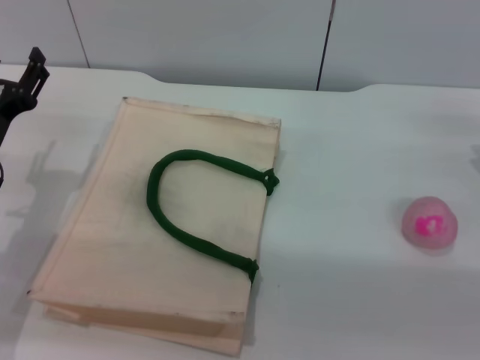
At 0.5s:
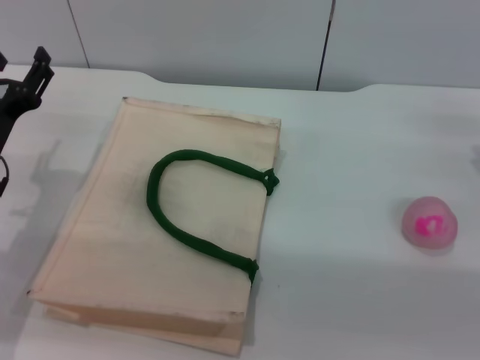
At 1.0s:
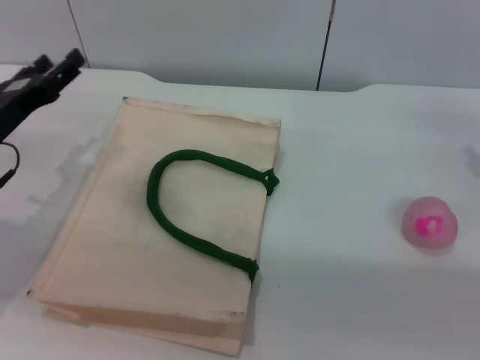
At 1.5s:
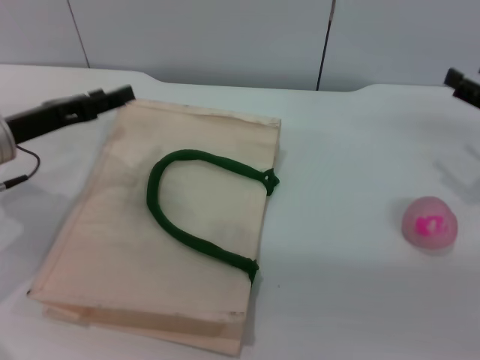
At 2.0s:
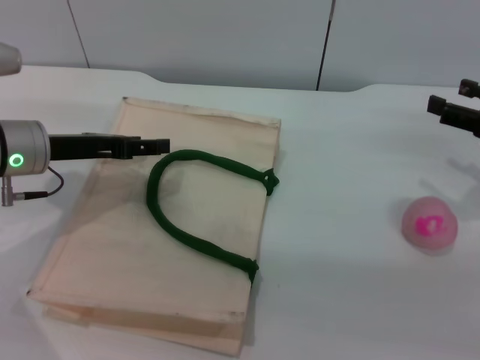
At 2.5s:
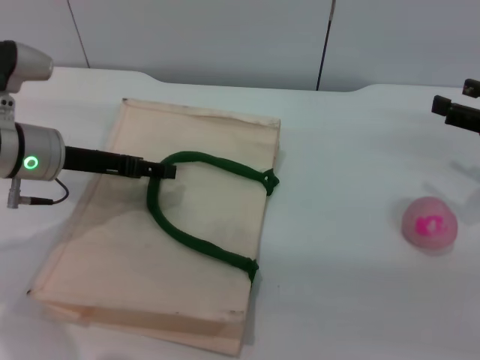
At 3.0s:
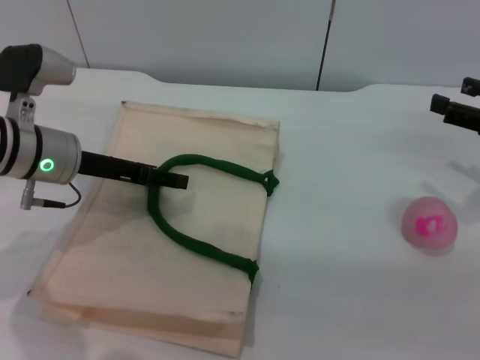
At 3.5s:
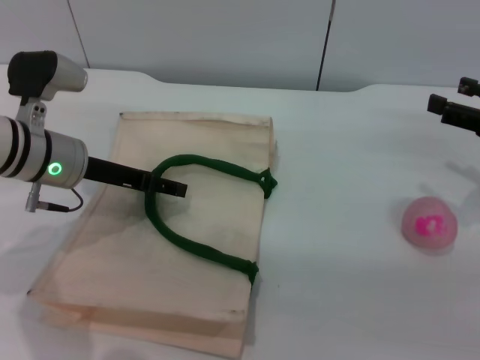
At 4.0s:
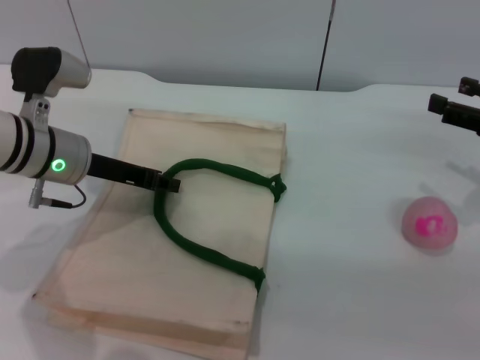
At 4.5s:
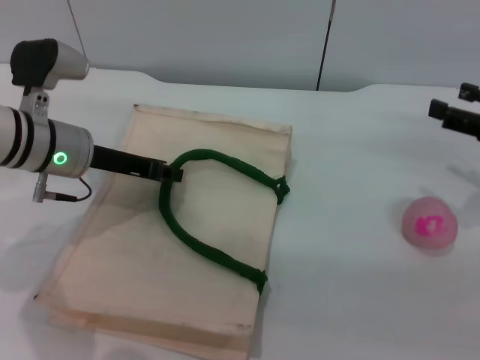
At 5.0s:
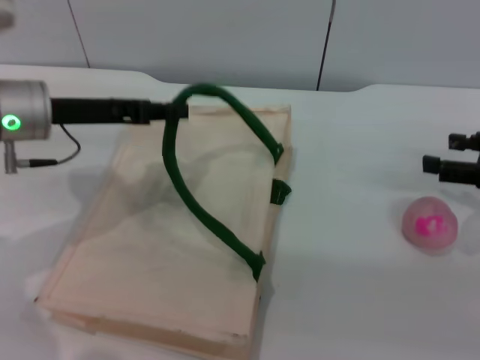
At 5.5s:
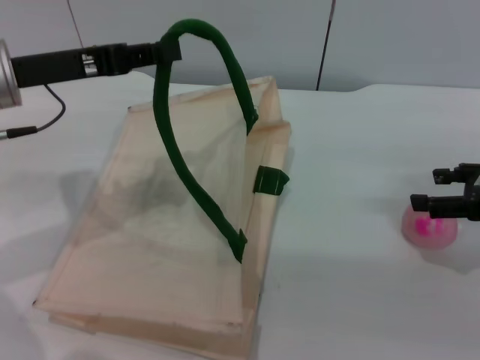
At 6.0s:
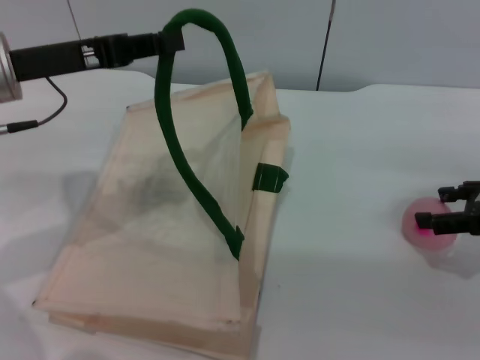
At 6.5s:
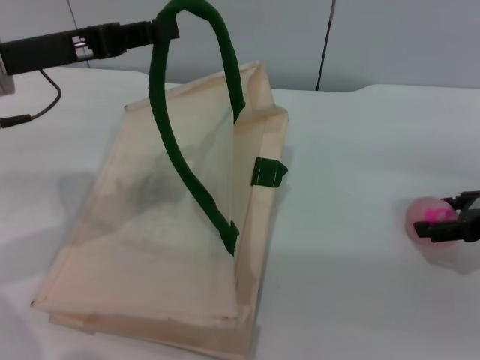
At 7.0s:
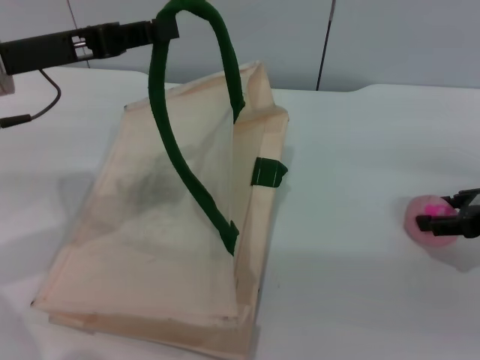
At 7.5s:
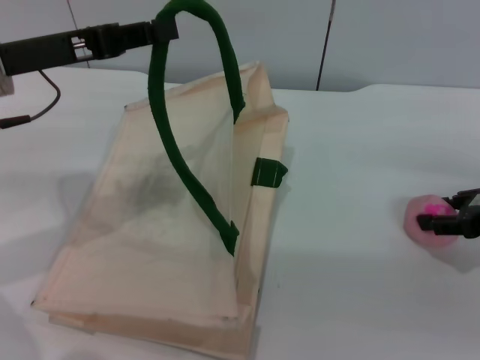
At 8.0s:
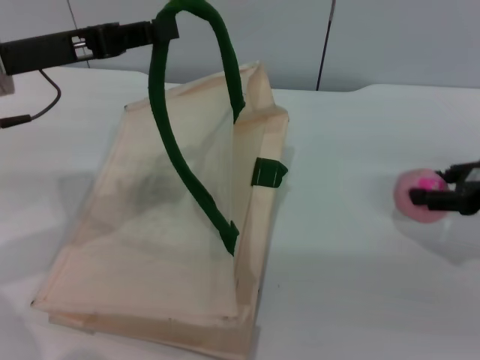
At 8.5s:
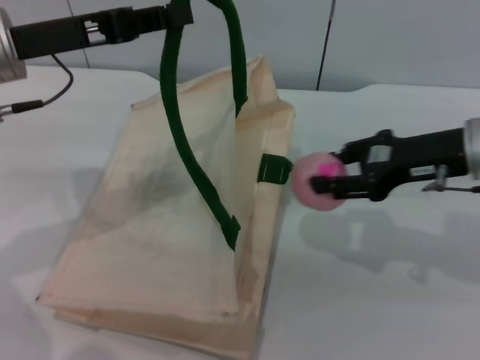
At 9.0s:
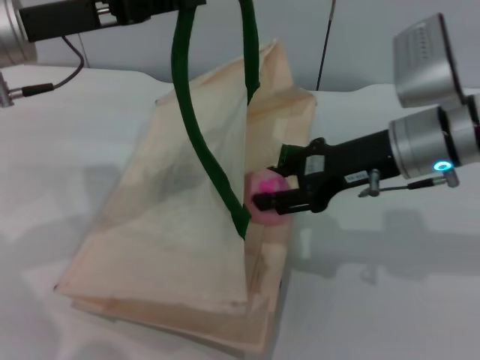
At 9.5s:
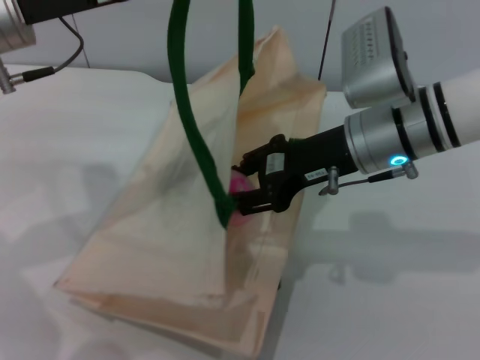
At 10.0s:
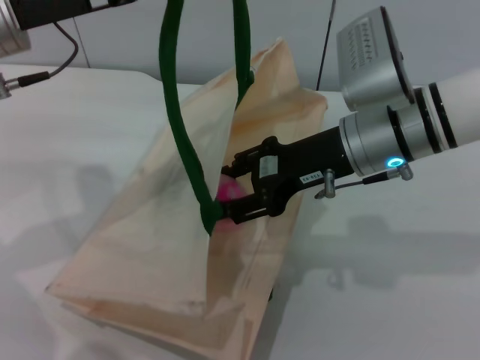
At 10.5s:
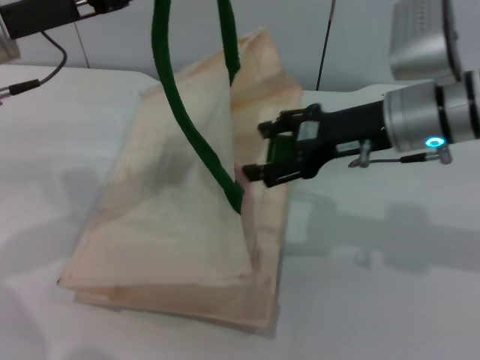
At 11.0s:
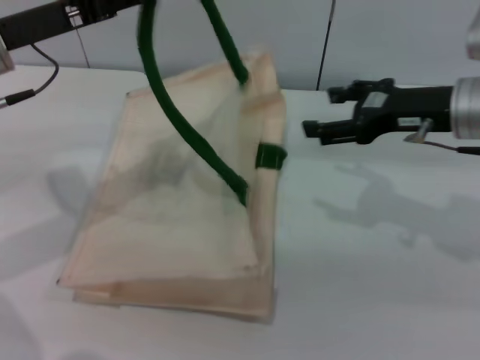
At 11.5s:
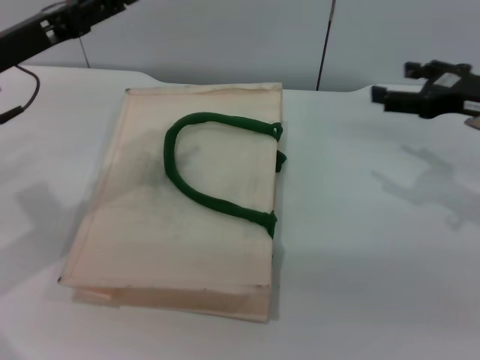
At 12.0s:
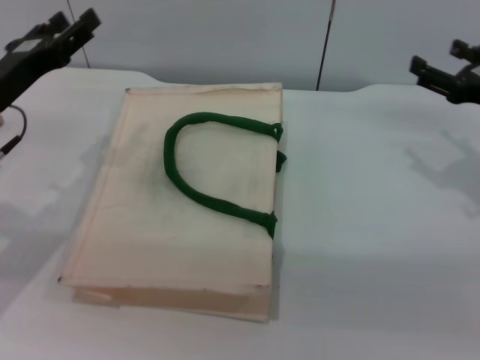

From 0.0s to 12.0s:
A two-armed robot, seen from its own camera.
Task of the whole recording: pick up the peach from the table and place it in the white handbag.
Step, from 0.0s to 4.5s: Lift the woven bag with the left gripper to open it.
Step, from 5.0s to 8.0s: Pick up the peach with the right gripper.
Step, from 8.5s to 10.5s: Place the peach into the woven bag with the right gripper.
Step, from 11.0s to 11.5s: Lower the woven bag with the left gripper to close it.
From 0.0s to 2.0s: The right gripper is displaced upward by approximately 5 cm. The left gripper heads forward, covering approximately 5 cm.
From 2.0s to 4.0s: The left gripper closes its fingers.
From 4.0s to 6.0s: The left gripper goes some 10 cm upward, and closes up.
From 6.0s to 8.0s: The right gripper closes.
From 8.0s to 10.0s: The right gripper moves to the left, approximately 20 cm.
From 10.0s to 12.0s: The right gripper shifts some 20 cm to the right, and opens up, while the left gripper moves downward, roughly 10 cm, and opens up.

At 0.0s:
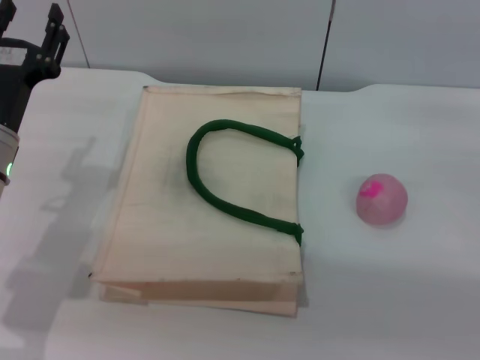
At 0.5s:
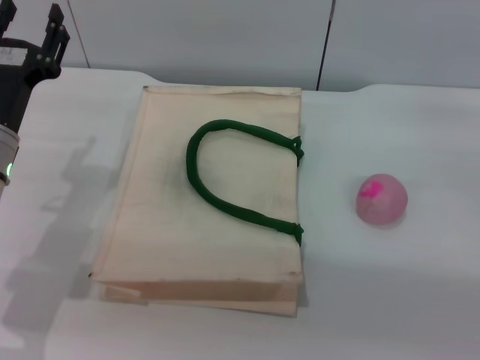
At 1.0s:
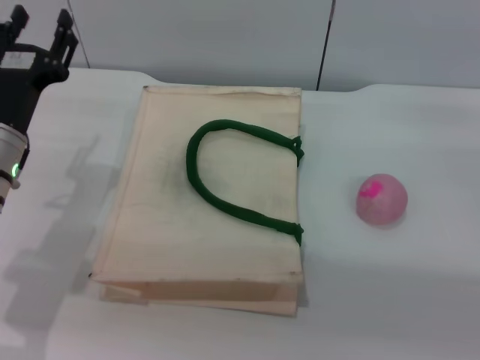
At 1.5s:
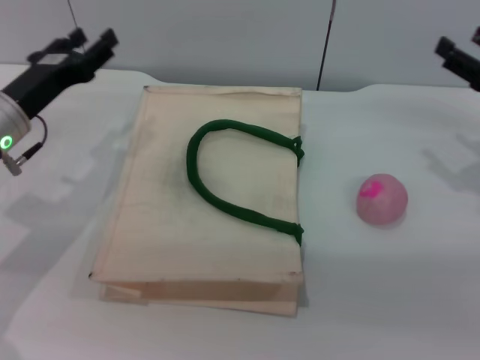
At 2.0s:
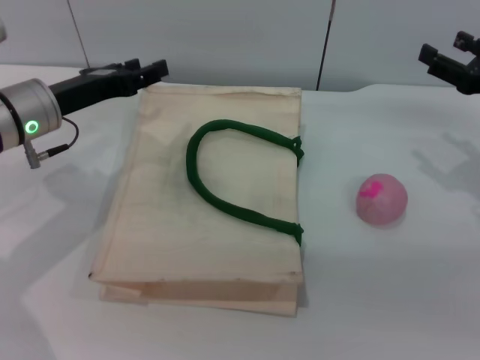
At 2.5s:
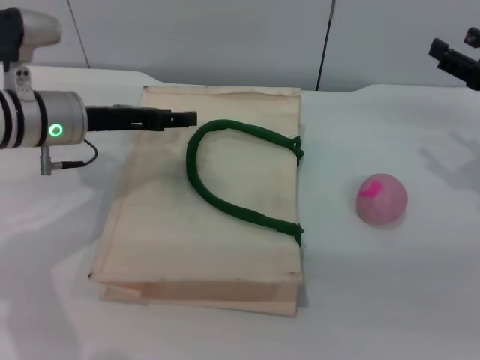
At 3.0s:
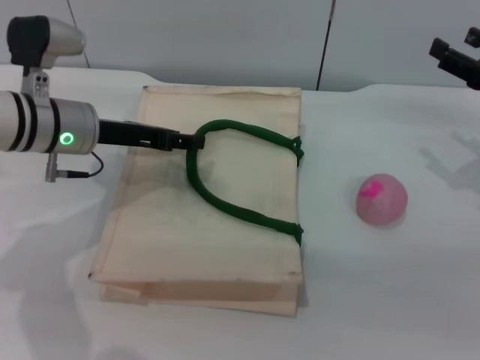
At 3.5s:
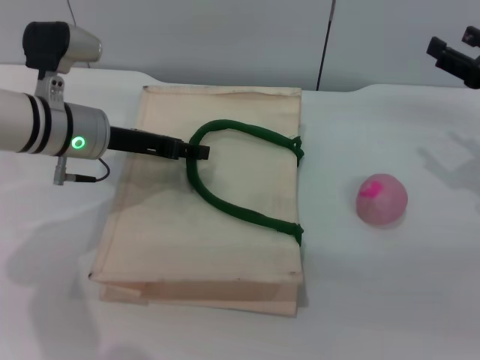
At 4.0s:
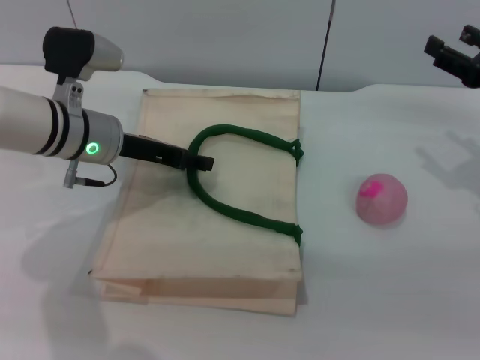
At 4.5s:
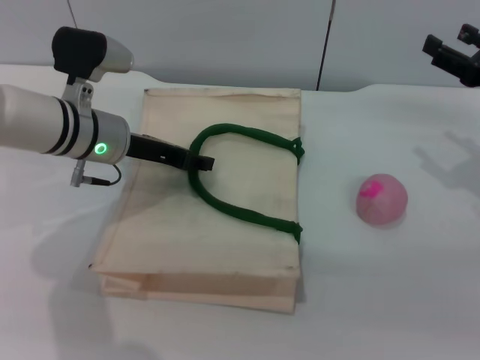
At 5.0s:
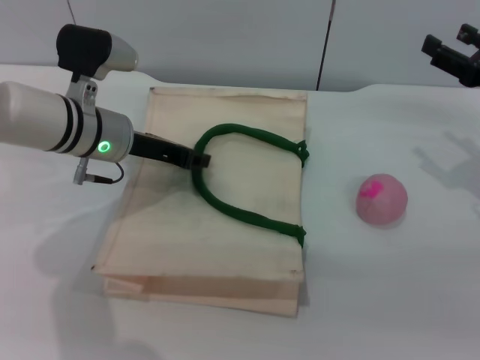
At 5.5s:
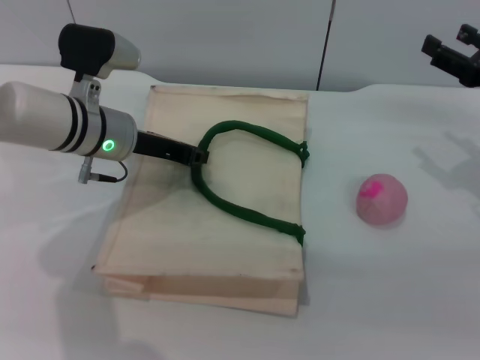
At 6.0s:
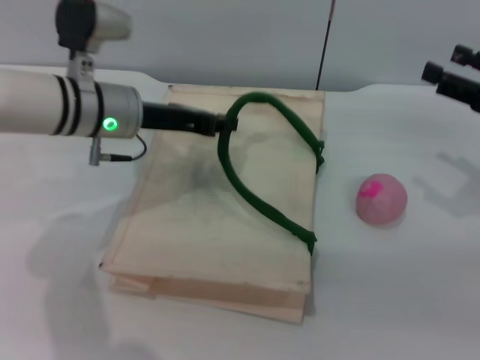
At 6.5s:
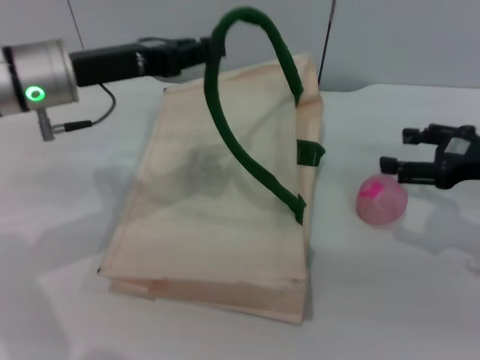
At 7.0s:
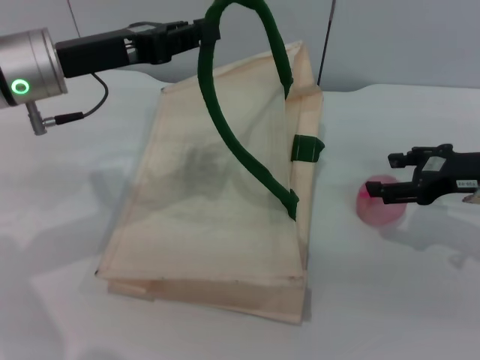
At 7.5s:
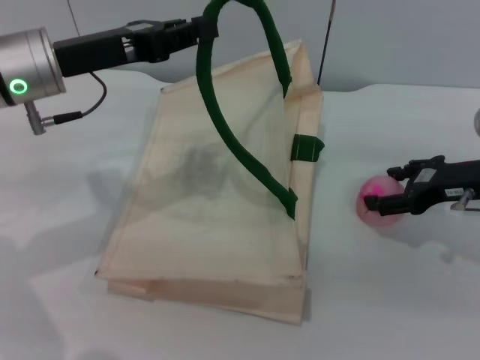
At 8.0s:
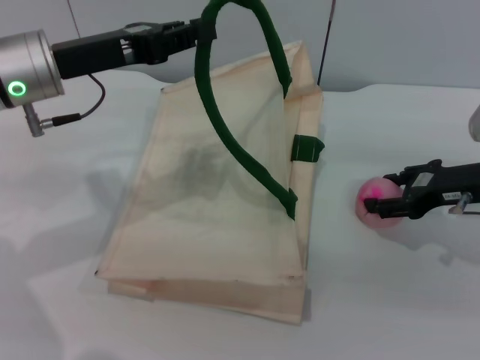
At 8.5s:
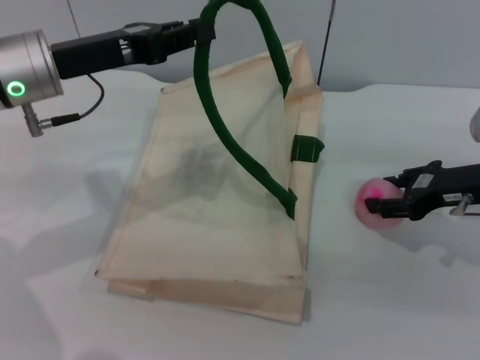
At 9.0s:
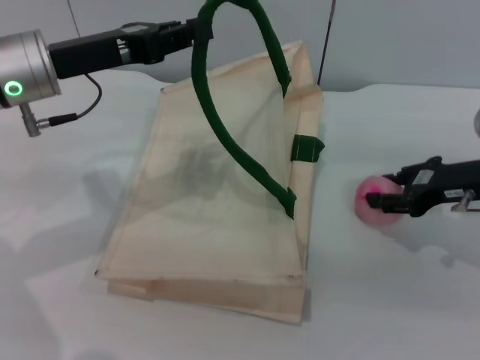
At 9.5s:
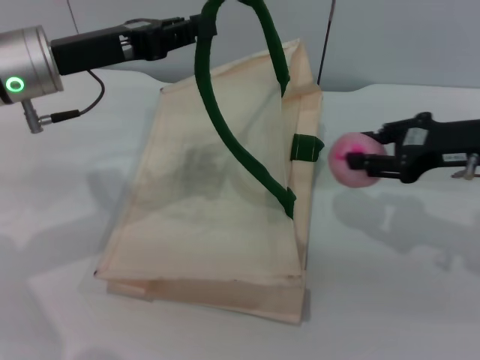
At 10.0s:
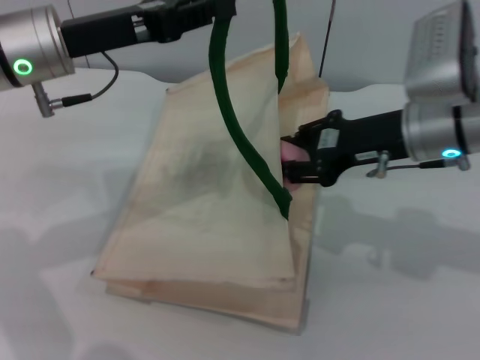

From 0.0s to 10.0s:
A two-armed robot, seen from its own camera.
Task of the whole recording: pick up the peach from the table and place it in the white handbag.
Step, from 0.0s to 6.0s: Lift the woven bag with the left gripper to open it.
Step, from 6.5s to 9.0s: Pick up the peach with the right gripper.
From 0.0s to 2.0s: The left gripper heads forward, covering roughly 5 cm; the right gripper moves approximately 5 cm.
From 2.0s to 4.0s: The left gripper goes approximately 5 cm to the right.
From 4.0s to 6.0s: The left gripper closes its fingers.
From 6.0s to 8.0s: The left gripper is displaced upward and to the left by some 10 cm. The right gripper travels to the left by about 5 cm.
From 8.0s to 10.0s: The right gripper travels to the left and upward by some 10 cm, and closes.

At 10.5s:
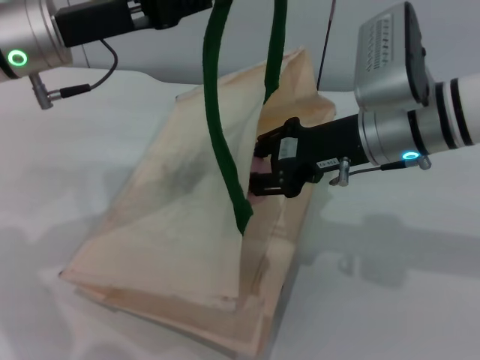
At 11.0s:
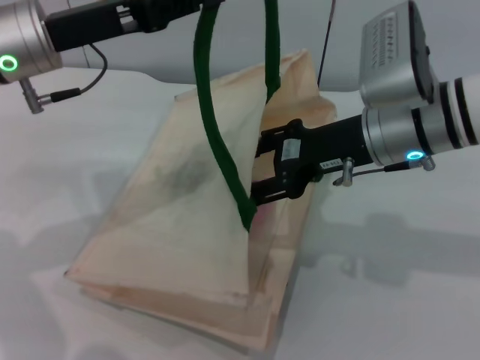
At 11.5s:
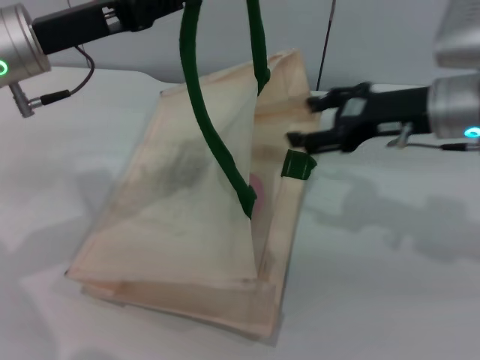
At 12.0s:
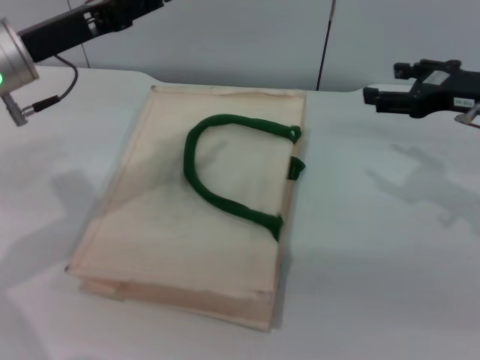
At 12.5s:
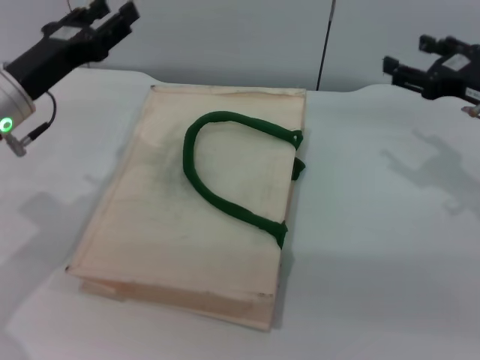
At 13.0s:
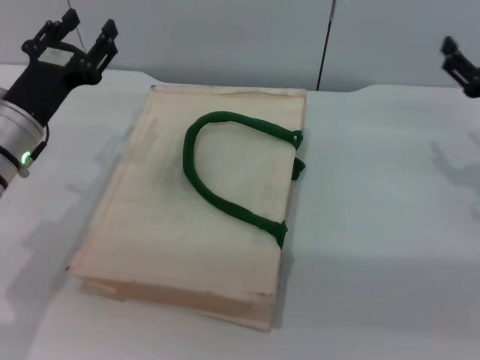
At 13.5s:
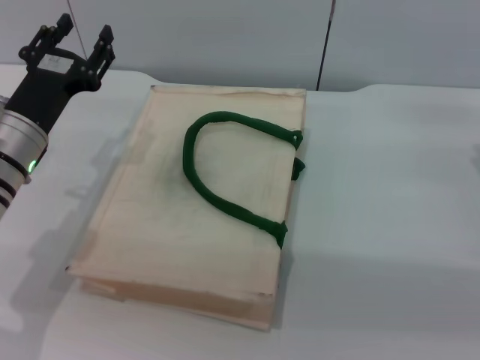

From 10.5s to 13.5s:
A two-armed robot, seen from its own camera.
Task of the whole recording: pick up the peach from the table and place it in the white handbag.
Step, from 11.5s to 12.0s: Lower the woven bag with the left gripper to close it.
From 10.5s to 12.0s: The right gripper shifts about 15 cm to the right, and opens.
From 12.0s to 13.5s: Both grippers travel together downward, about 10 cm. The left gripper opens up.
